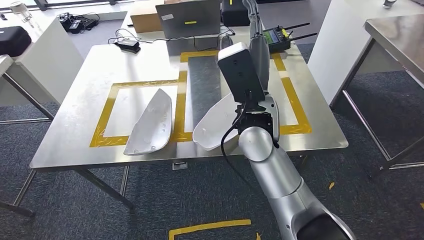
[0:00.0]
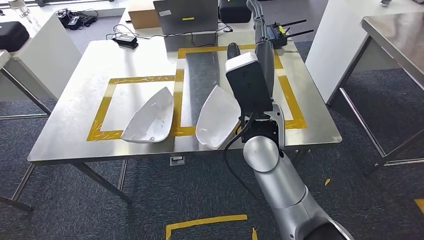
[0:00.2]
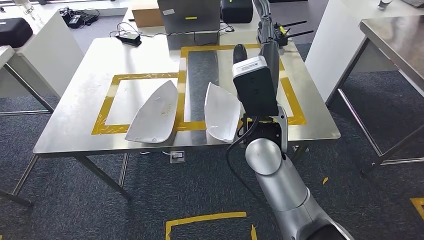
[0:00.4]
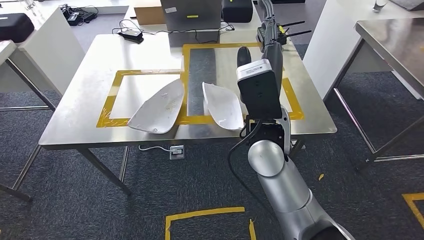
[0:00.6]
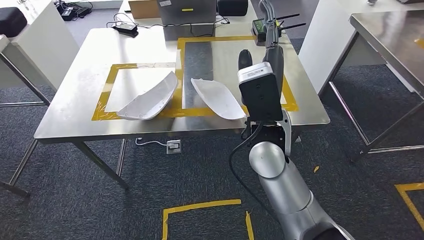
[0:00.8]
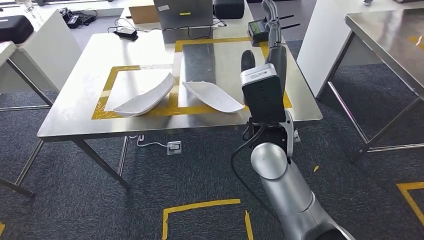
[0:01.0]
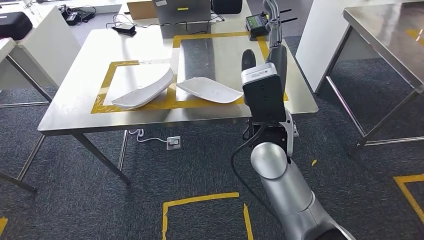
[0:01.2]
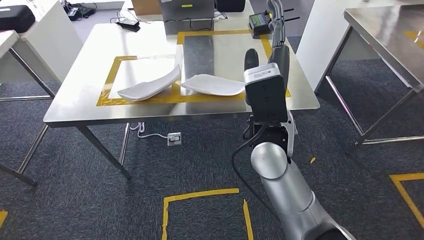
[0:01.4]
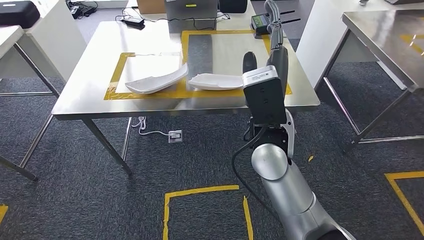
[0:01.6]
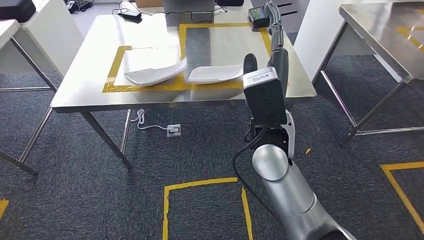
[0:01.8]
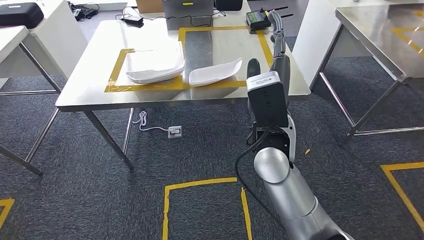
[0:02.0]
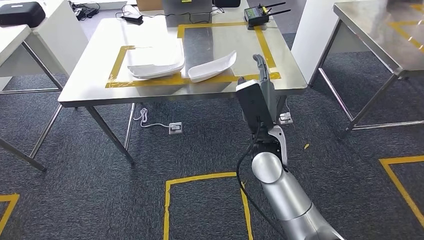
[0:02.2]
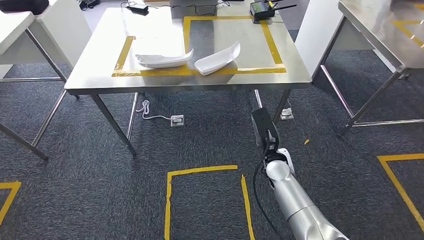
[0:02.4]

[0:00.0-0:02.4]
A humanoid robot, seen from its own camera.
Step, 0:00.2 to 0:02.4: Return to the initial position at the workbench.
